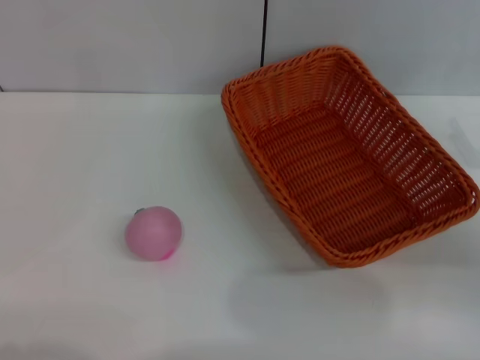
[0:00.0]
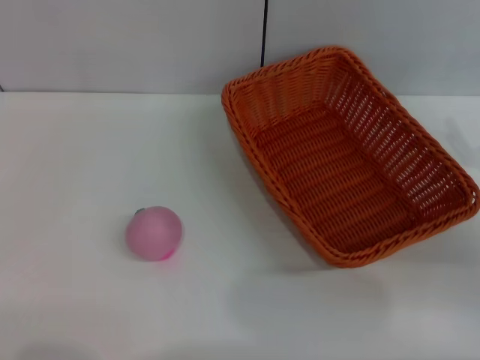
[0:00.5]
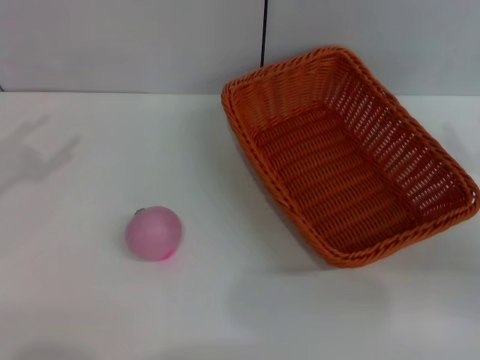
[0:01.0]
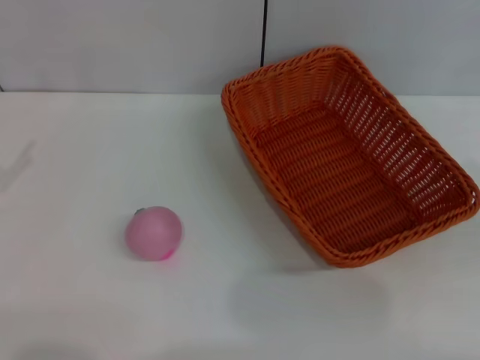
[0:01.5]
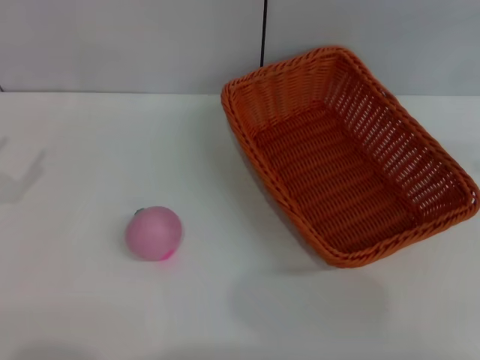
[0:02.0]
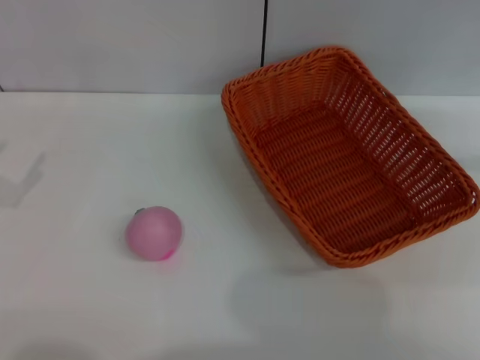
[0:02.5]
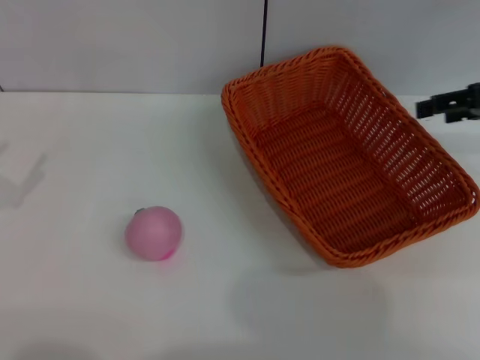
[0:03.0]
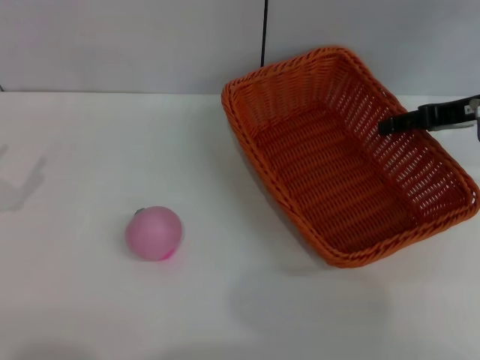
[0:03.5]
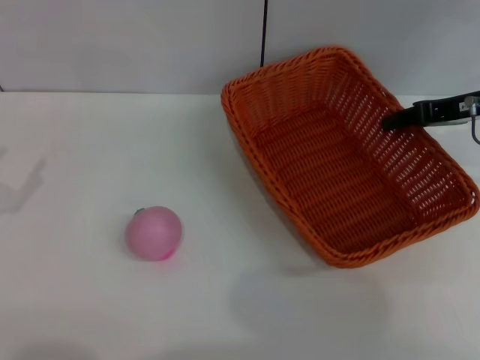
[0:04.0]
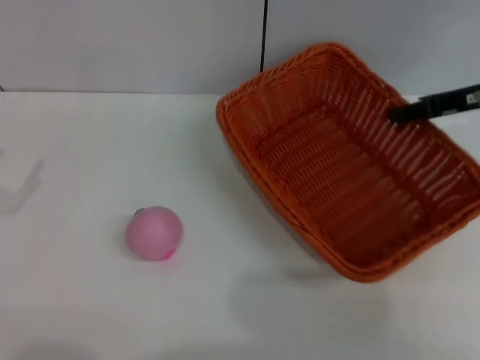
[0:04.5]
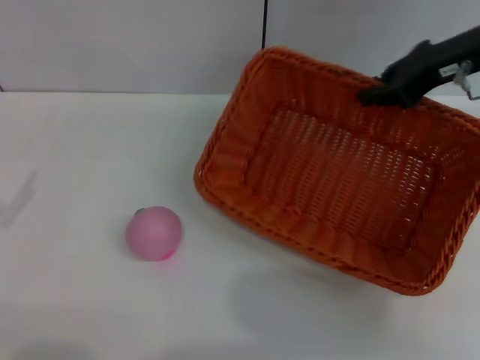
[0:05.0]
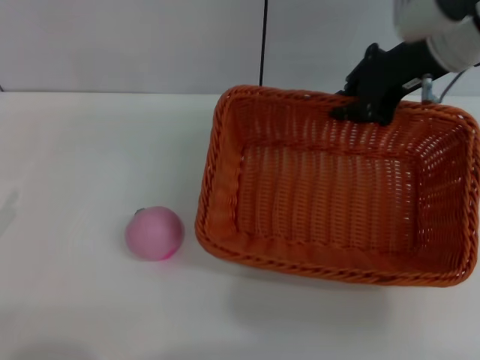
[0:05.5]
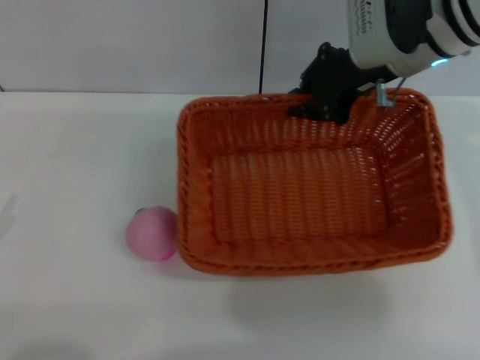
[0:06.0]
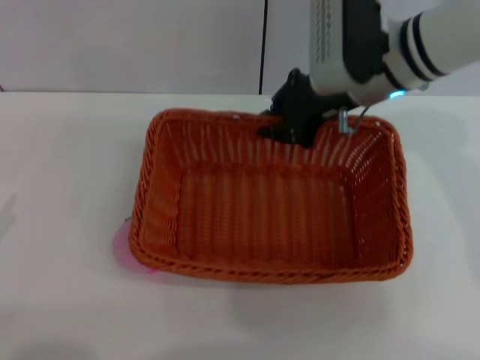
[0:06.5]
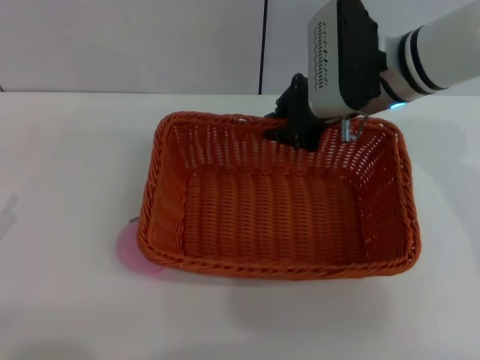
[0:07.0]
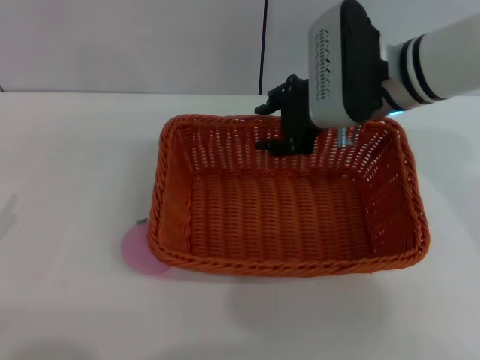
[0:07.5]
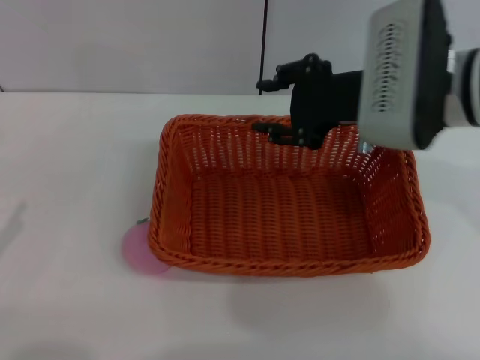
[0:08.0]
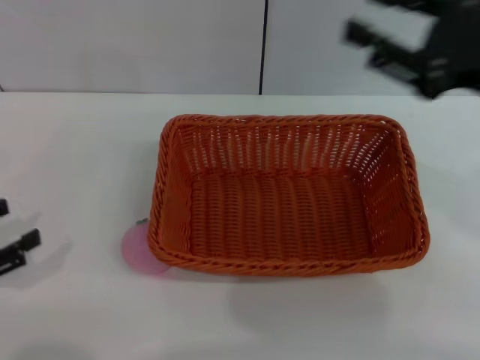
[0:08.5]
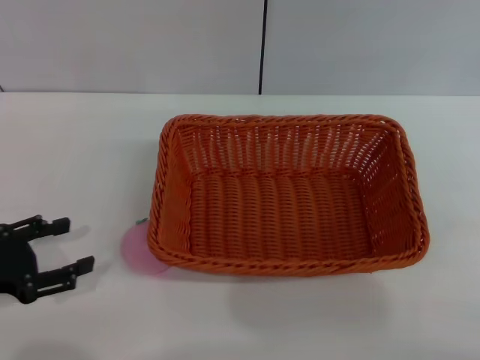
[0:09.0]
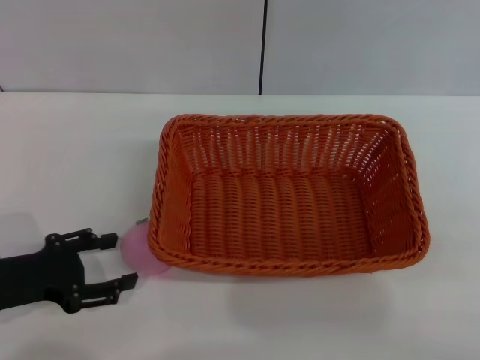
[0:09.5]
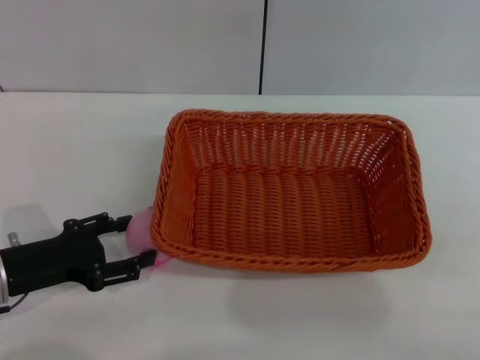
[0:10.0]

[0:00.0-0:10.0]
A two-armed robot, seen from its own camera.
Step, 0:00.0 to 0:04.5: Pick up the light basket with the right gripper.
Step, 0:05.0 to 0:08.0: Place the light basket in the center of view with the right gripper.
0:00.0 to 0:02.0: The right gripper is displaced upward and to the right by some 20 cm.
0:02.0 to 0:04.0: The right gripper goes about 20 cm to the left, forward and downward, and closes.
0:04.0 to 0:06.0: The left gripper is displaced backward by about 5 cm, while the right gripper shifts approximately 15 cm to the left, and closes up.
0:06.0 to 0:08.0: The right gripper shifts roughly 10 cm backward, and opens up.
0:08.0 to 0:10.0: The left gripper heads to the right and forward, covering approximately 15 cm. Meanwhile the right gripper shifts approximately 30 cm to the right and backward.

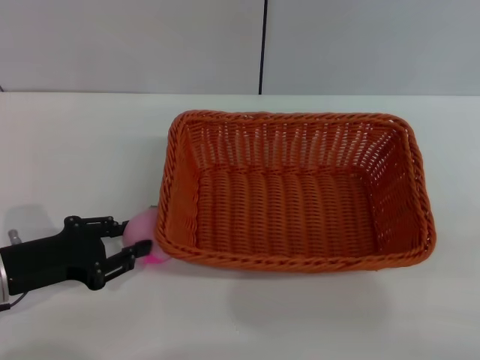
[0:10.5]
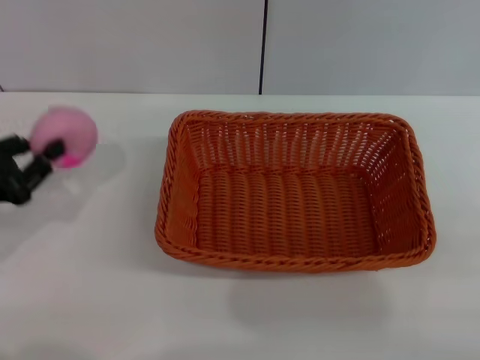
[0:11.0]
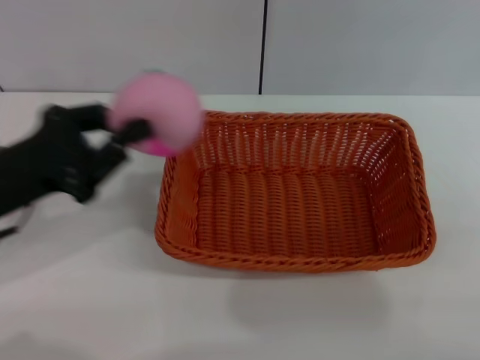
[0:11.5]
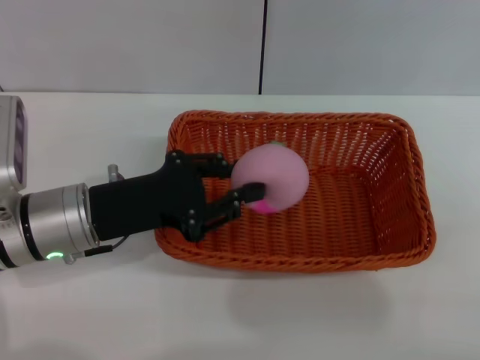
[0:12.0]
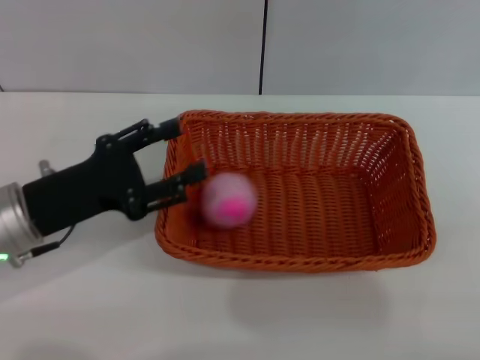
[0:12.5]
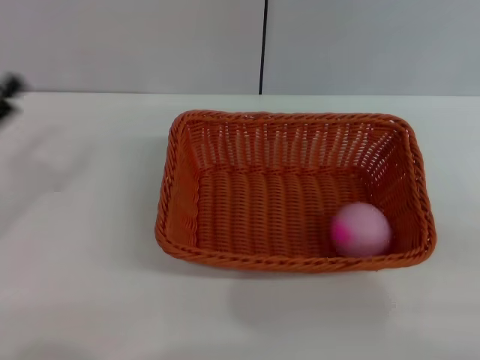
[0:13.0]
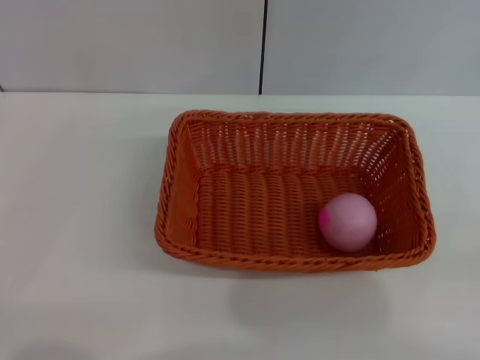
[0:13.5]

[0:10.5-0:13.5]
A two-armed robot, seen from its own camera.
Step, 0:11.5 to 0:12.5: Place the peach into the basket with the left gripper.
0:10.5 to 0:12.0: The left gripper heads to the right, covering about 10 cm, and closes up.
0:12.0 to 0:13.5: The right gripper is displaced downward by some 5 cm. Meanwhile the left gripper moves to the left and backward, some 20 cm, and opens its fingers.

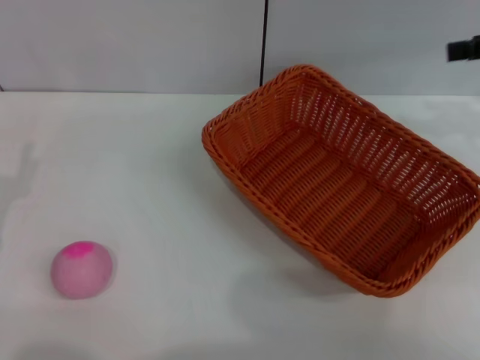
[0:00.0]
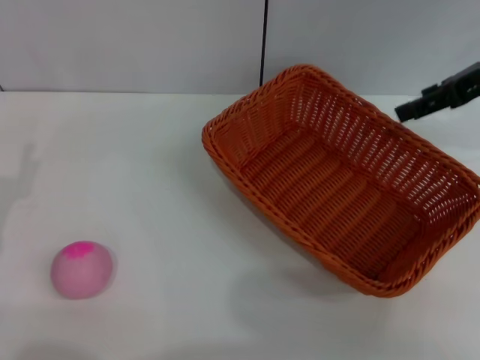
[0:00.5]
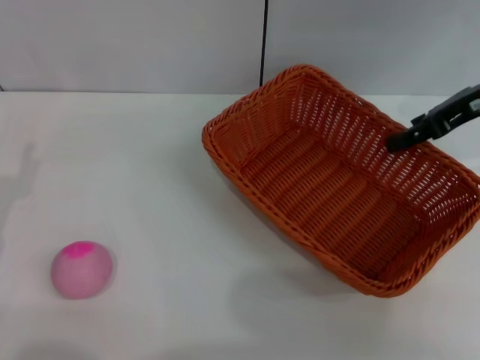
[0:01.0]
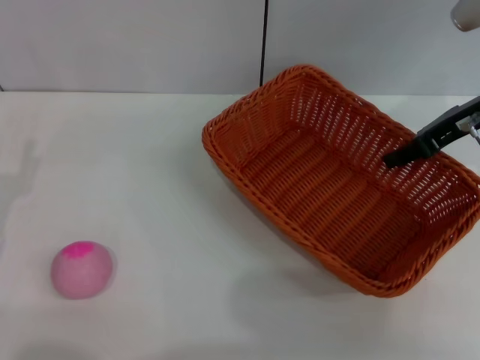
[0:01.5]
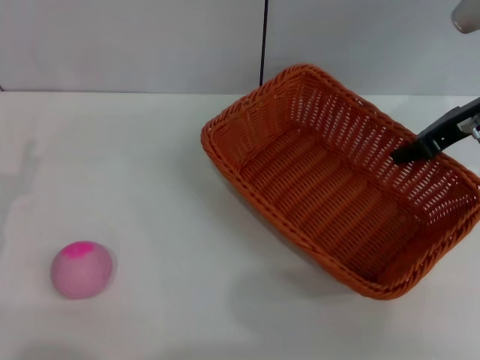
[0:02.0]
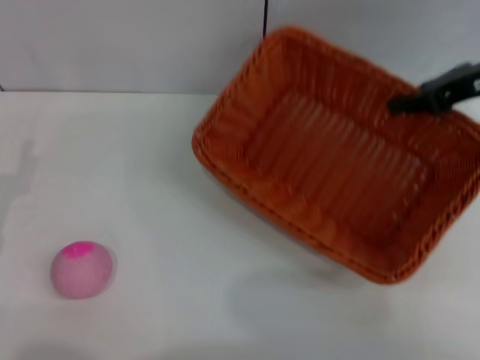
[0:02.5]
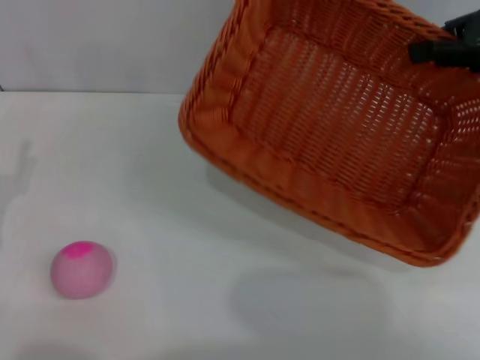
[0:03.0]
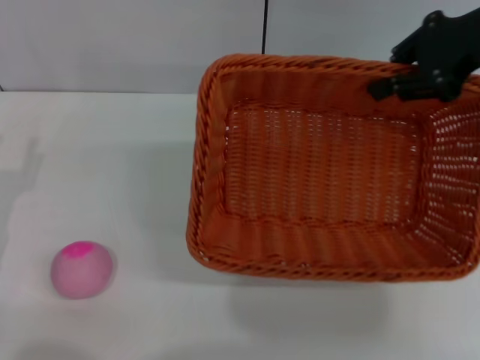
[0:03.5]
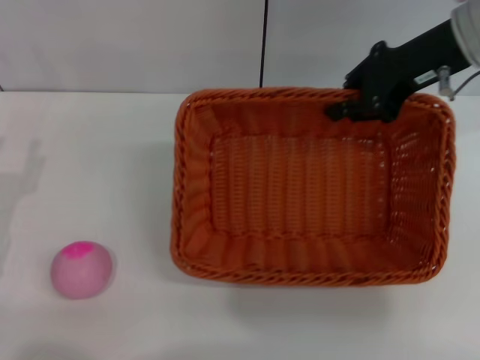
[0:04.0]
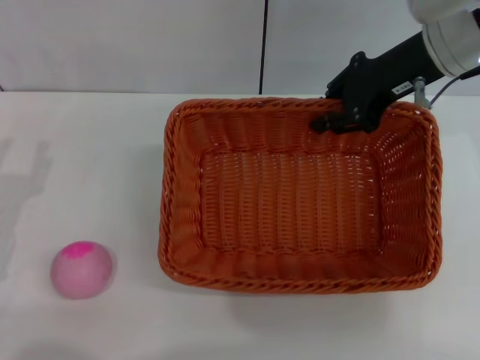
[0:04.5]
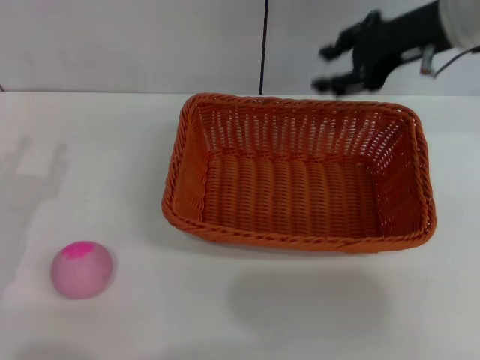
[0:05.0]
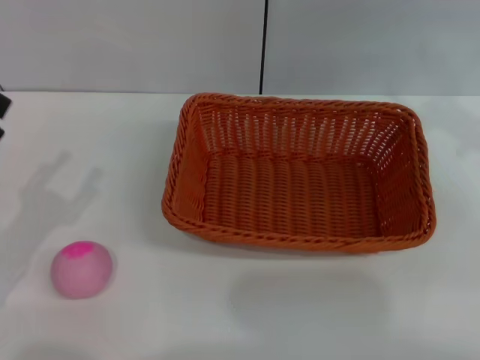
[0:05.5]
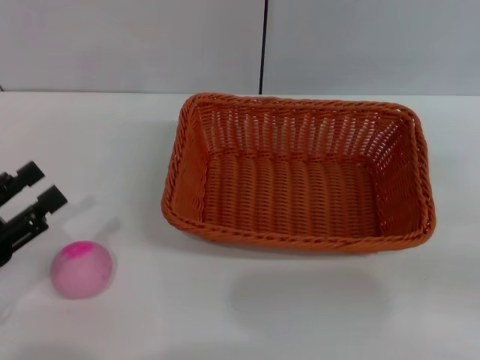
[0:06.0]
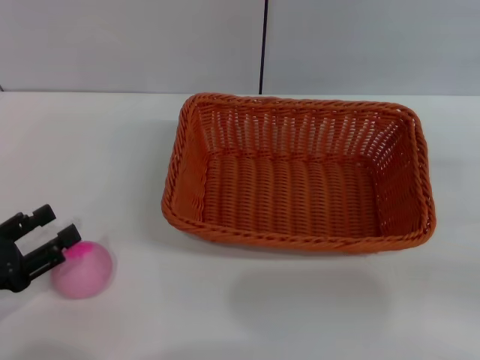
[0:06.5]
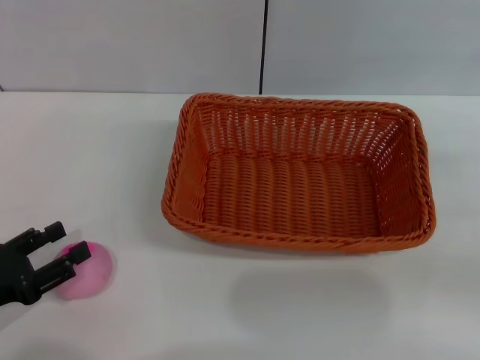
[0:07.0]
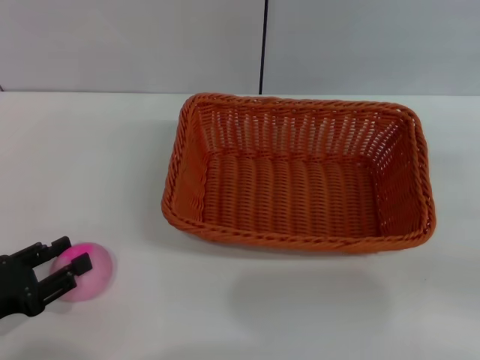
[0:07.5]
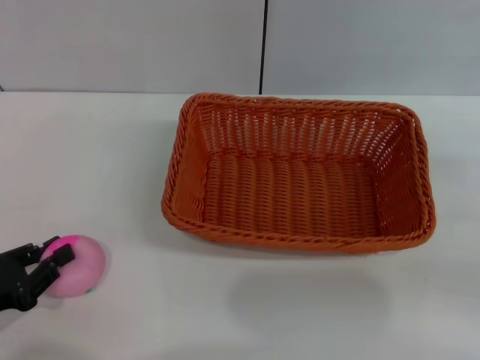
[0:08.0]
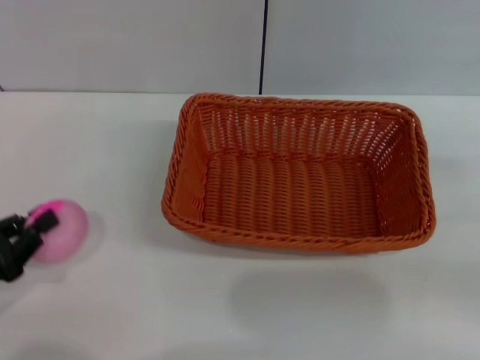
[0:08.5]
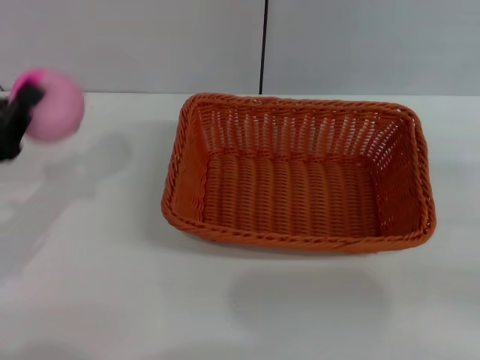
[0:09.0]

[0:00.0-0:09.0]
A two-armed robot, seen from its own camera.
Step, 0:00.0 to 0:02.0: Pick up the light basket with the right gripper.
Step, 0:02.5 to 0:05.0: Place the light basket in the center of view with the right gripper.
Step, 0:05.5 to 0:08.5: Pick up the peach with the left gripper.
0:00.0 to 0:02.0: The right gripper goes some 10 cm to the left and downward, and closes its fingers.
0:02.0 to 0:04.5: The right gripper is displaced to the left by roughly 5 cm.
0:04.5 to 0:07.0: The left gripper shifts by approximately 5 cm. Meanwhile the right gripper is displaced to the right and backward by about 25 cm, and opens.
0:07.0 to 0:09.0: The left gripper is displaced forward by approximately 5 cm, and closes up.

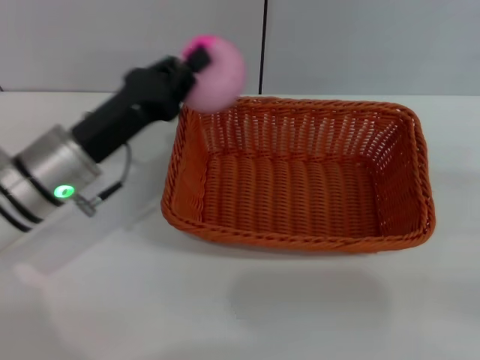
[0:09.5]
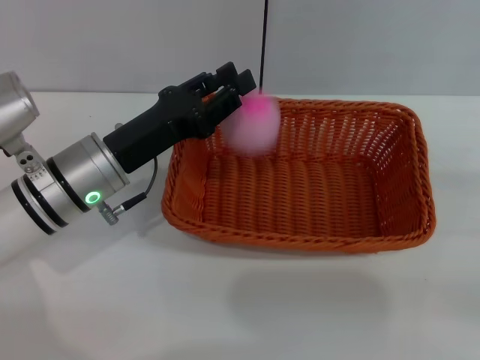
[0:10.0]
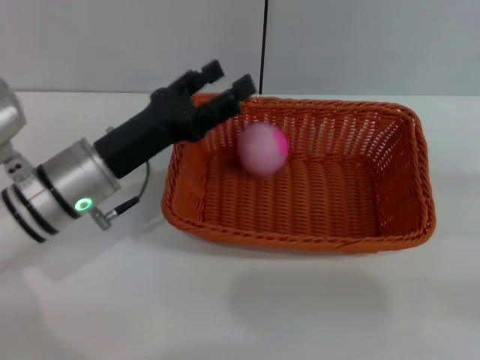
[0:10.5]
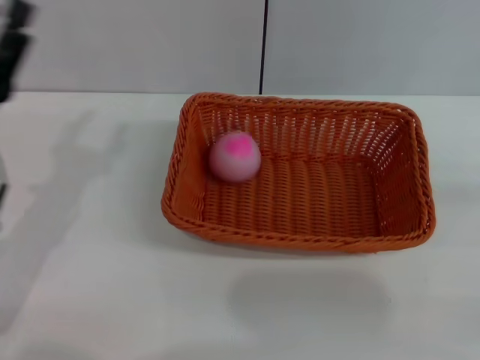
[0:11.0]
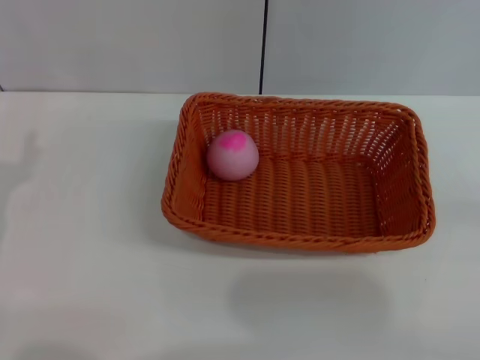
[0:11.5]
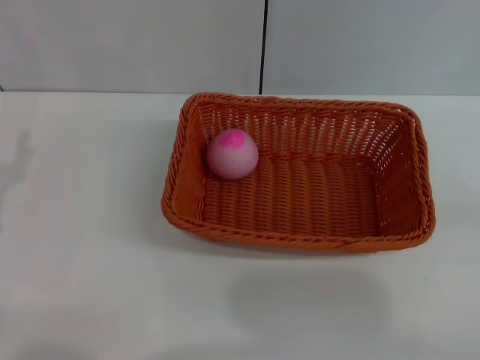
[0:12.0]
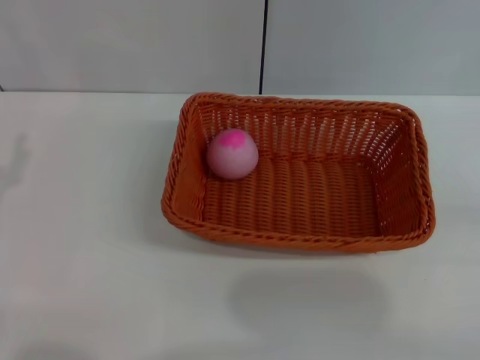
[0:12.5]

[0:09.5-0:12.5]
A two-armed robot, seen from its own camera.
Step, 0:09.5 to 0:10.5: Place the peach into the basket with the left gripper.
0:09.5 to 0:11.0: The left gripper moves backward and to the left, roughly 10 cm, and opens.
0:11.0 to 0:12.5: The left gripper goes roughly 5 cm to the left.
